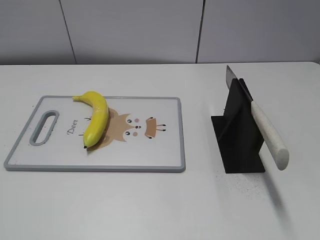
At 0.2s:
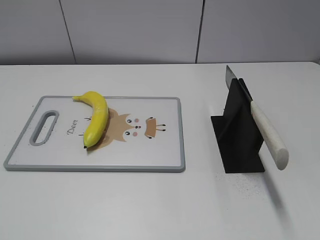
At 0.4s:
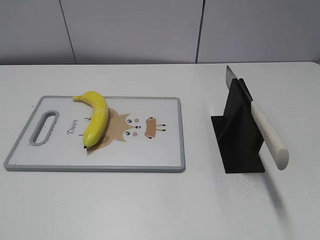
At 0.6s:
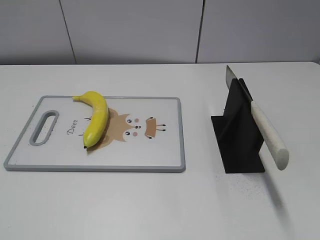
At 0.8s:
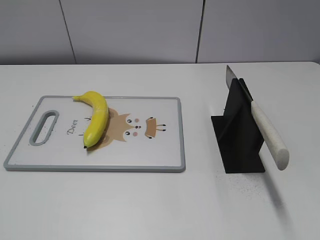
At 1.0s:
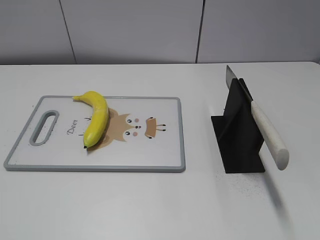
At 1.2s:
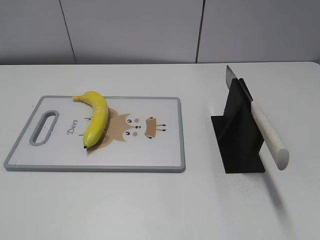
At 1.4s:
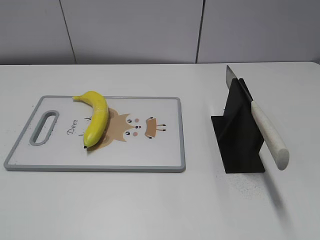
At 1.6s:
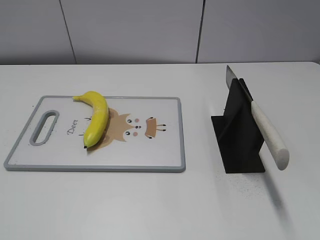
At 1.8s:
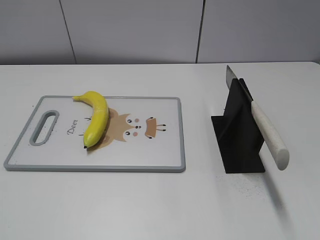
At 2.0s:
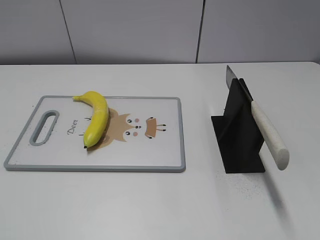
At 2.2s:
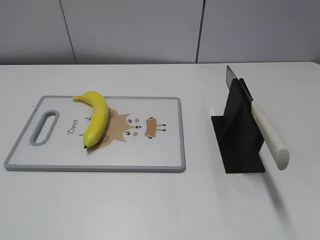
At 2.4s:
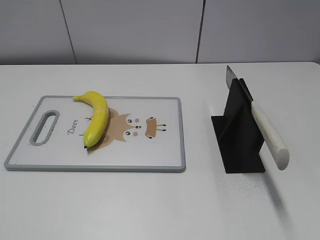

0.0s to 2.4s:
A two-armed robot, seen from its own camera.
Task of the whole recording: cut plastic banana.
1.2s to 2.4s: The two grippers keep their place.

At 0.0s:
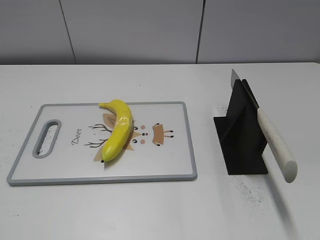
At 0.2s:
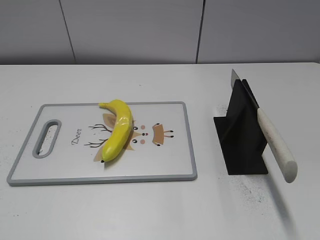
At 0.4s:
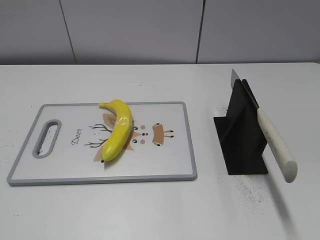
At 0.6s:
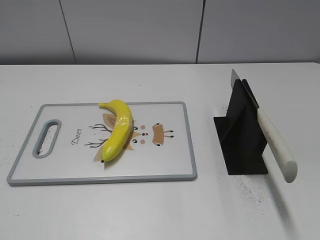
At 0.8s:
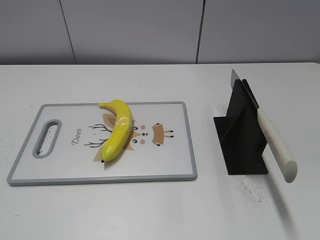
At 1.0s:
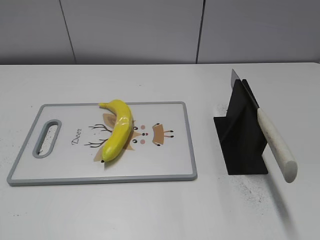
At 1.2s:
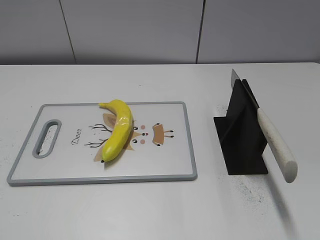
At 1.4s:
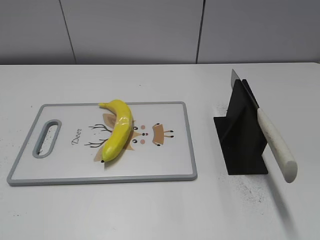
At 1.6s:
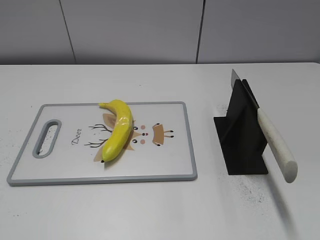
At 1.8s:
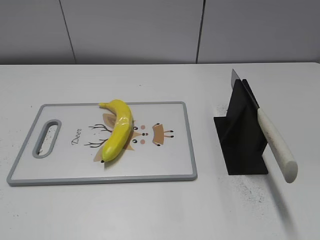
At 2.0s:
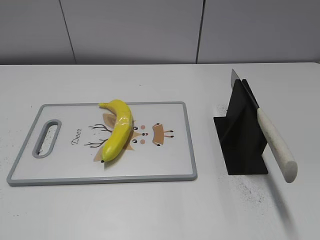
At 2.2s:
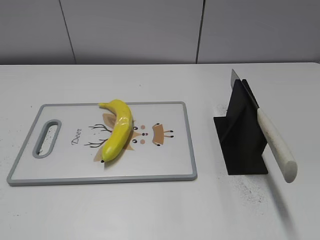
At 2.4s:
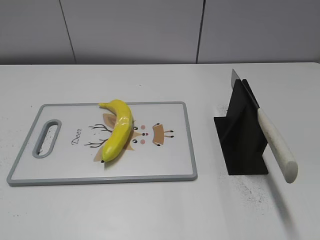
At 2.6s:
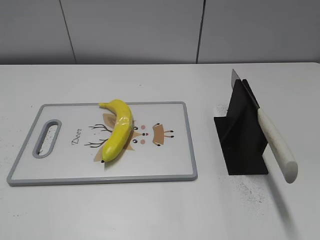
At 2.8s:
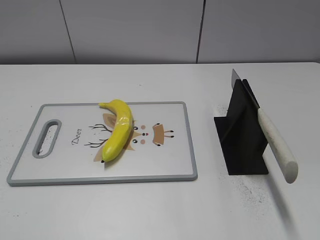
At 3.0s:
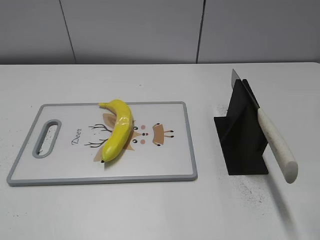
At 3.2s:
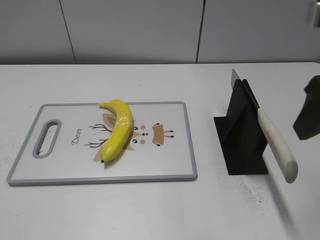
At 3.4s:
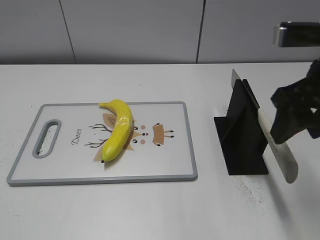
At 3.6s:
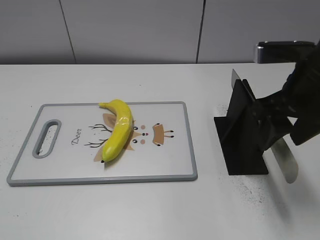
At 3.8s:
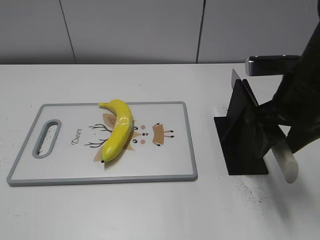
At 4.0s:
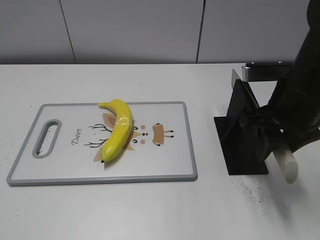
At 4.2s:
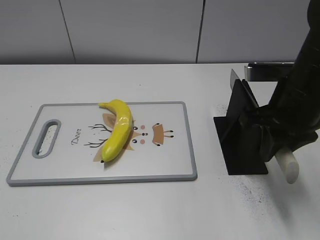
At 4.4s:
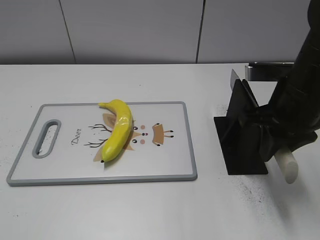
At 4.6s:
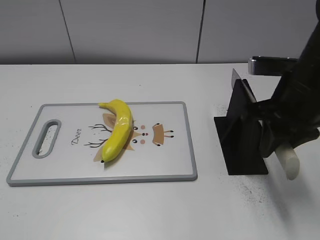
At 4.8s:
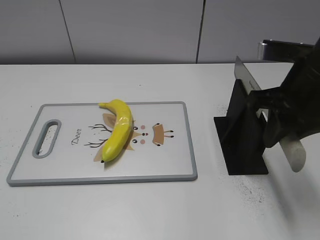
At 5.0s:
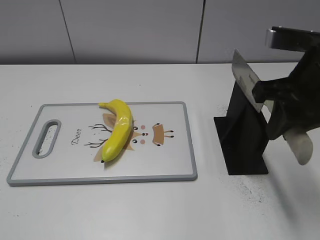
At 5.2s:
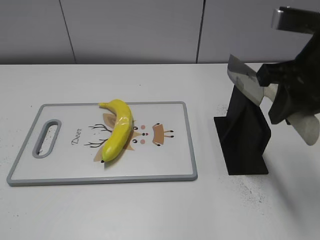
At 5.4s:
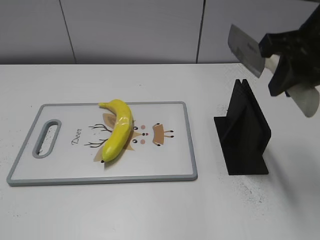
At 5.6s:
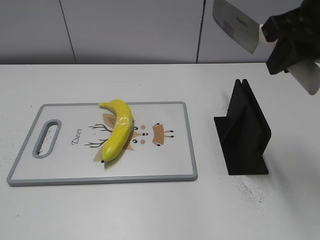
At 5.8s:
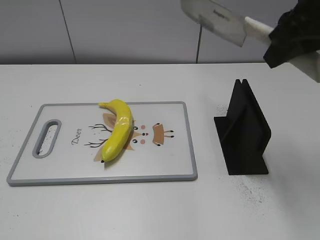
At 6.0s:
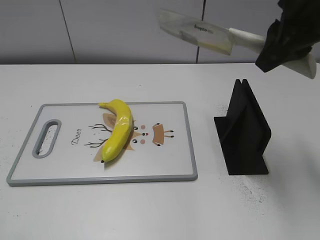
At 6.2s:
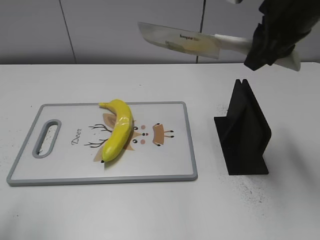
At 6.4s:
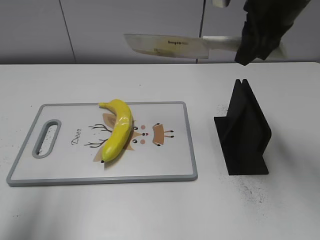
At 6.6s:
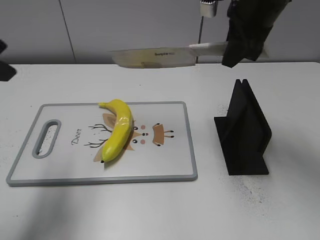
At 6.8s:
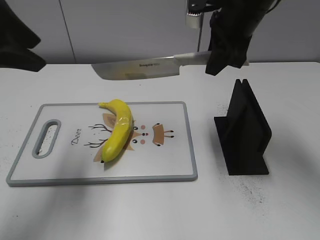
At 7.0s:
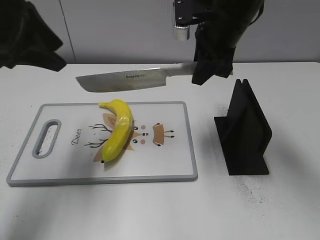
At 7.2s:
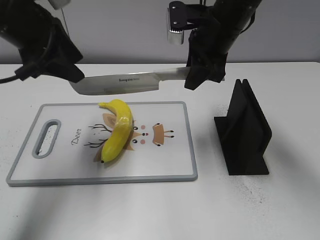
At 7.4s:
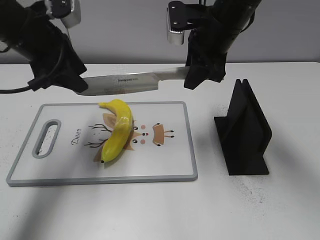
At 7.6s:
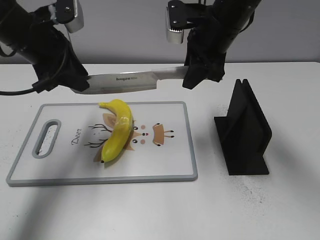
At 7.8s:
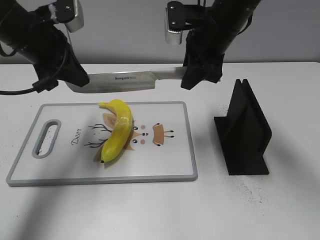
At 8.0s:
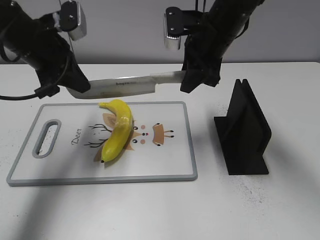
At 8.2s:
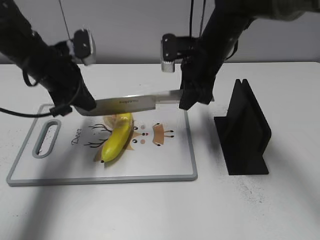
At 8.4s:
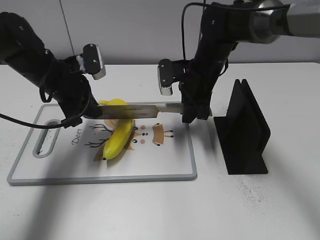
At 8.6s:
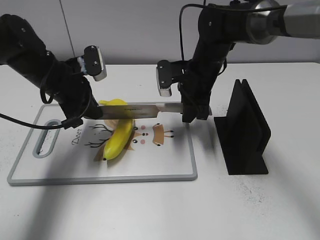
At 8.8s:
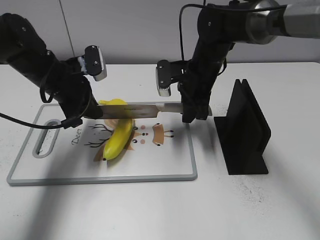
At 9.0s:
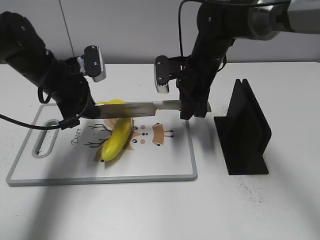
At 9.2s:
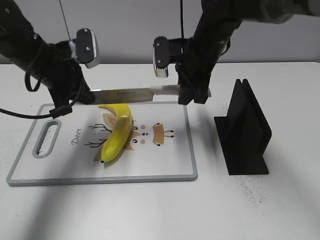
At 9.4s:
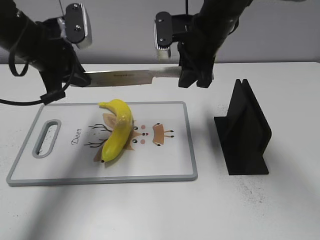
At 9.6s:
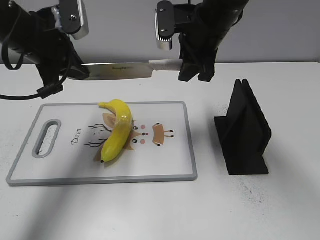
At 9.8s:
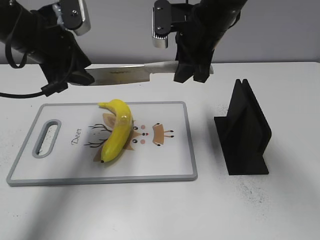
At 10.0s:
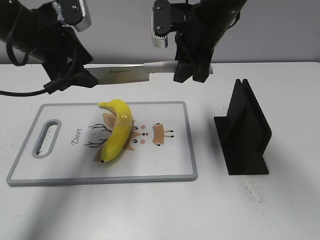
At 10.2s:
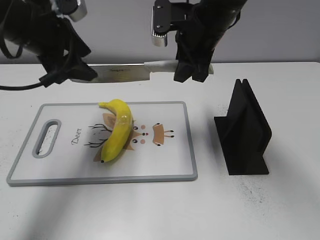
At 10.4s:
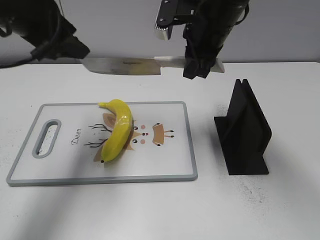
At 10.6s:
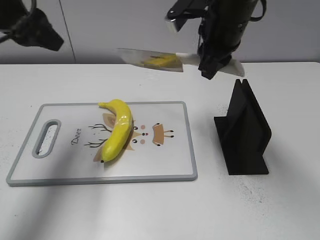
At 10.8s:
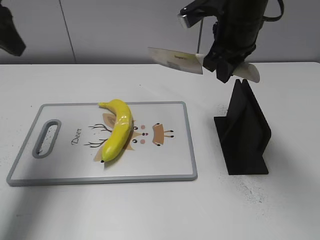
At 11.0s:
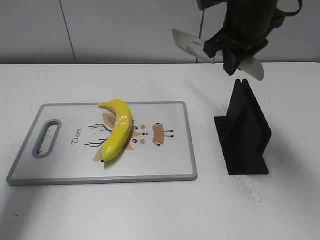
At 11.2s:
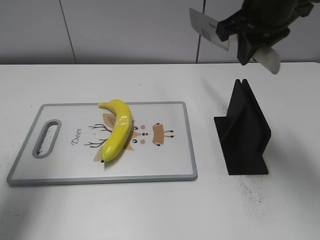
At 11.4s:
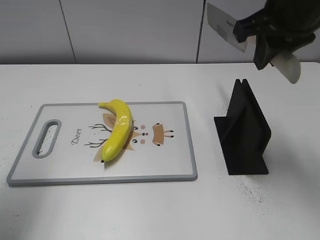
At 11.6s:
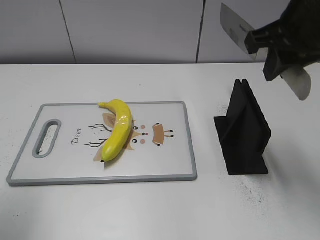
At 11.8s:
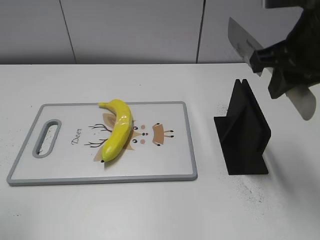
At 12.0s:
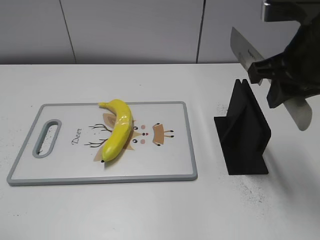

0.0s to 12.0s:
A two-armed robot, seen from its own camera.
Task of the whole recording: cut plastic banana.
Step, 0.0s to 5.0s: Grab the knife handle with your right hand.
Step, 5.2s to 9.6s: Lift the knife with your right hand.
Step, 9.8s to 10.6s: Cut the banana with your right hand.
3.0s to 4.4s: The right gripper shifts approximately 15 cm downward and forward, and closes up.
4.4s to 6.0s: The right gripper travels upward by approximately 10 cm.
6.0s to 7.6s: The left gripper shifts roughly 30 cm forward, while the right gripper shifts about 15 cm forward, downward and to the left.
7.6s to 9.0s: The grippers both shift downward by roughly 10 cm. The left gripper closes its fingers.
9.0s to 10.4s: Both grippers move upward, approximately 10 cm. The left gripper opens its fingers.
10.4s to 12.0s: The left gripper shifts approximately 25 cm backward, while the right gripper is displaced backward and to the right by about 15 cm.

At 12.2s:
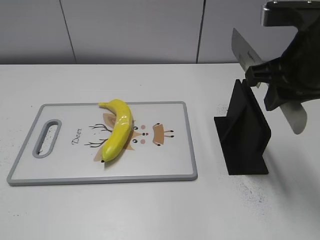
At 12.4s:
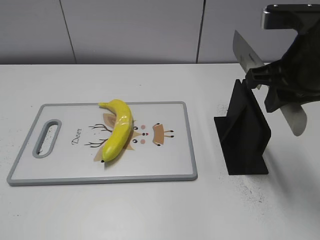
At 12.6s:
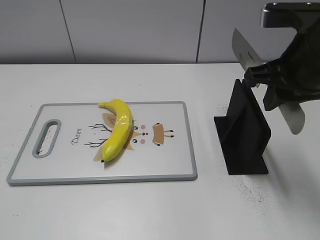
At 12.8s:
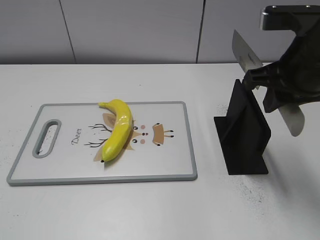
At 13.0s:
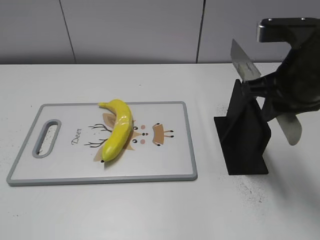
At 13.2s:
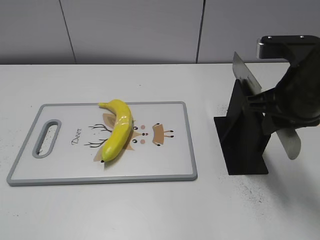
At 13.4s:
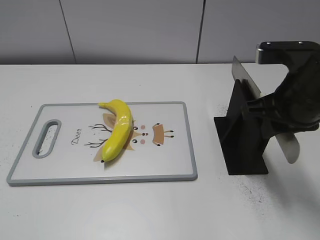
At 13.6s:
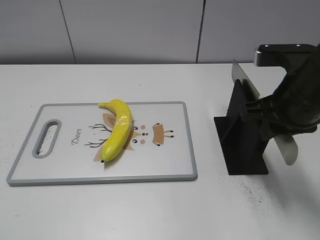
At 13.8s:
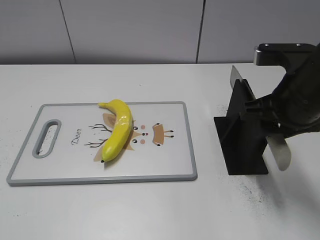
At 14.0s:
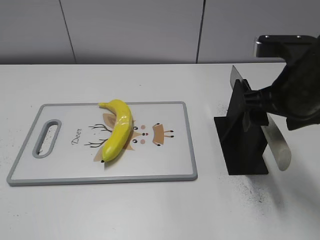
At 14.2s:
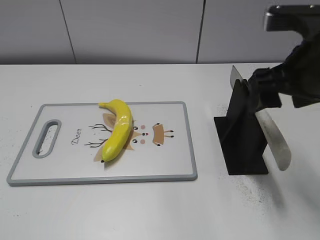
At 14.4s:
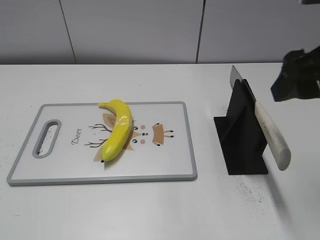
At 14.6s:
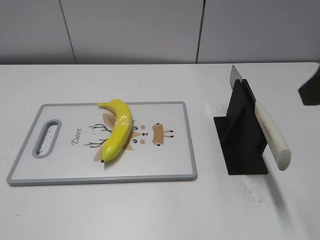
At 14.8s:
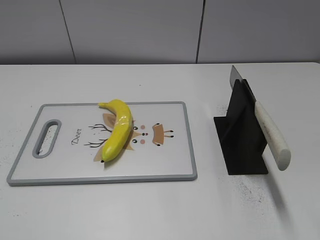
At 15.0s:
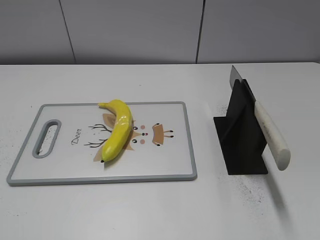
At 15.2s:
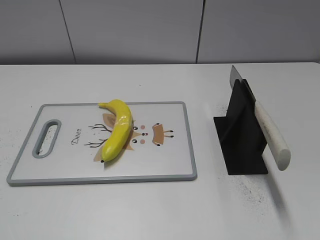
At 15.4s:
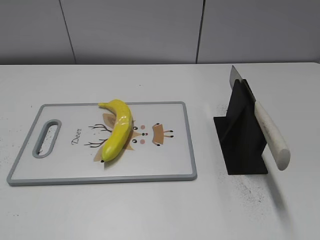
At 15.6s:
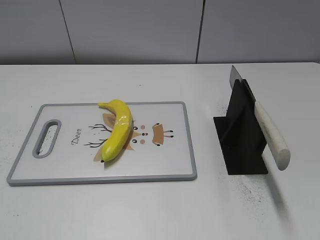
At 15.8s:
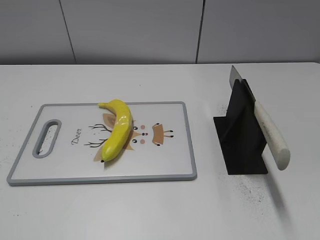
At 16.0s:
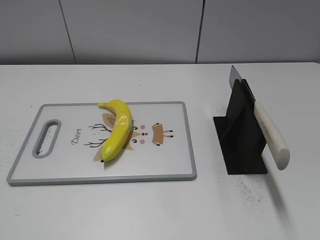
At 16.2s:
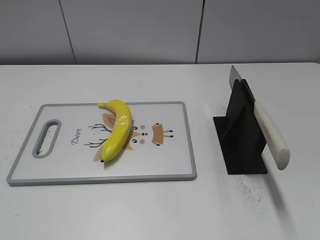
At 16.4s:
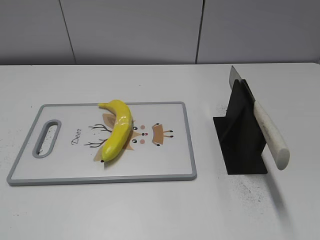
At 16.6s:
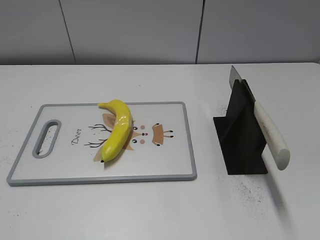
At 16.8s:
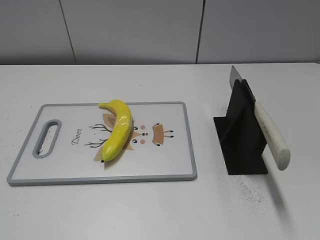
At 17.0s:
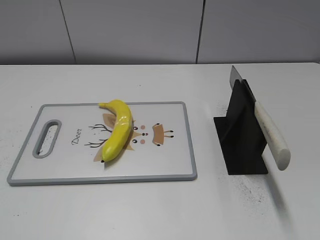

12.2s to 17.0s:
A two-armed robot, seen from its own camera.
Task of the whole recording: cut plastic banana.
Step, 12.2s to 17.0s: Place the knife on the storage rack with your right hand.
12.2s to 13.8s: The right gripper is displaced downward by about 5 cm, and opens its fingers.
13.8s to 15.4s: The right gripper travels backward and to the right by about 25 cm, and opens its fingers.

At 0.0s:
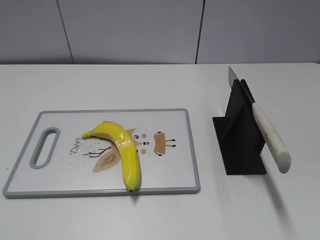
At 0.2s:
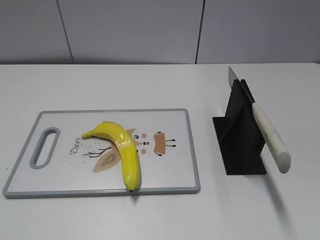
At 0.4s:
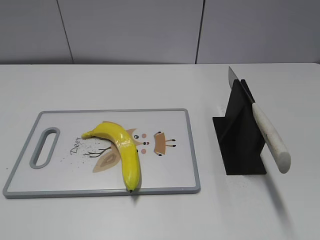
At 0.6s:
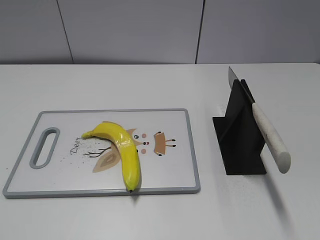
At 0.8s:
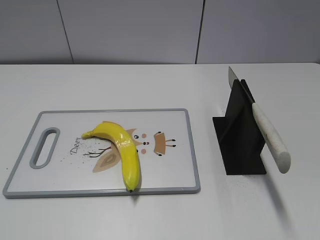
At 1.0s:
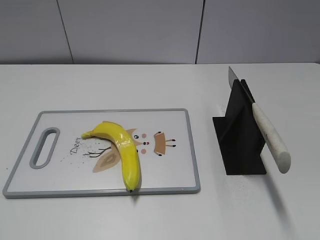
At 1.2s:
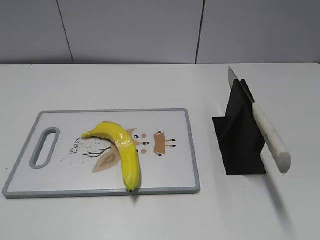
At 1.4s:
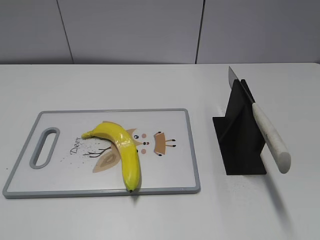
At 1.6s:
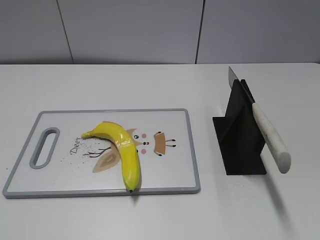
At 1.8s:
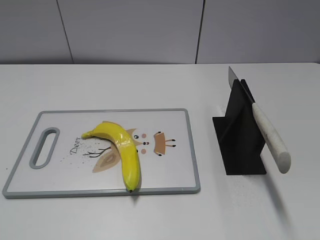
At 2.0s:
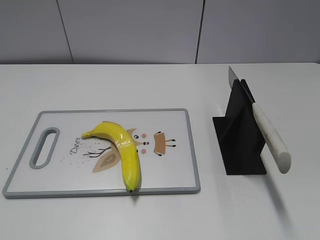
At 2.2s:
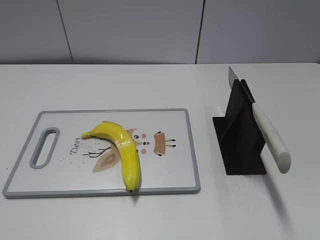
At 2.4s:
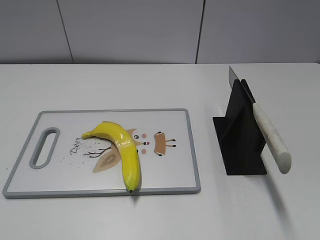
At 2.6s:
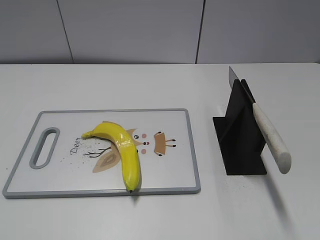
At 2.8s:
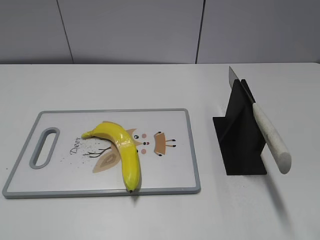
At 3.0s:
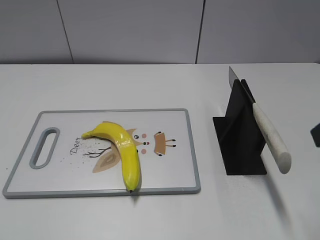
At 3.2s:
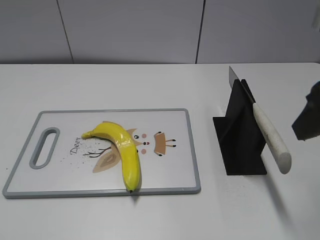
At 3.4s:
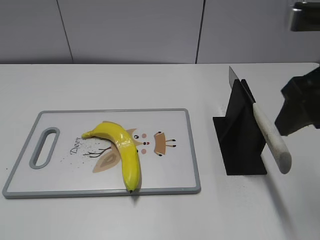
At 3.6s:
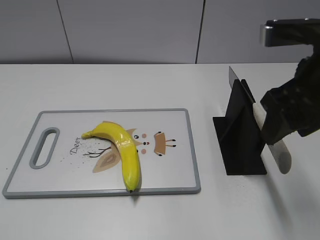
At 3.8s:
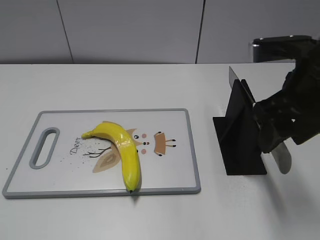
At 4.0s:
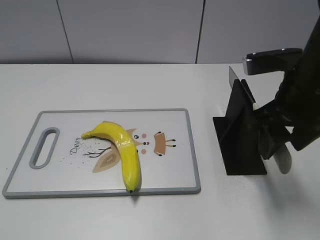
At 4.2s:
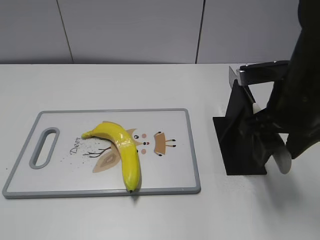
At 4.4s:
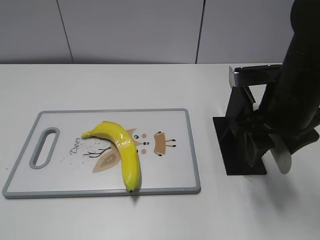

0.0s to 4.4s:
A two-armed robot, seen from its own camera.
Task of the whole recording: cut plastic banana.
3.0s to 4.4s: The right gripper heads forward, downward and to the left, covering some 15 cm.
